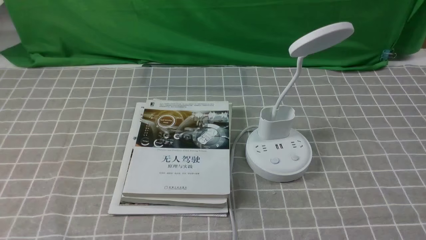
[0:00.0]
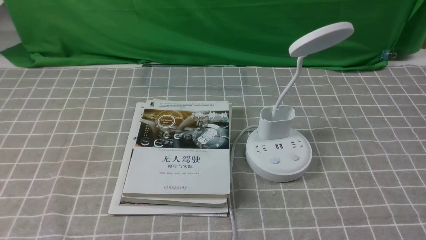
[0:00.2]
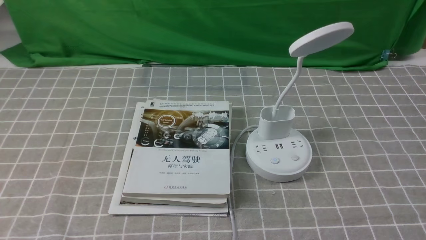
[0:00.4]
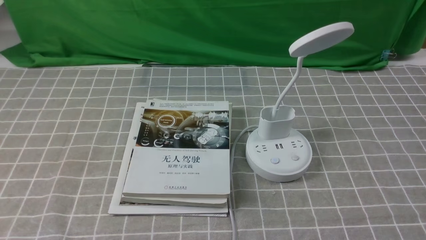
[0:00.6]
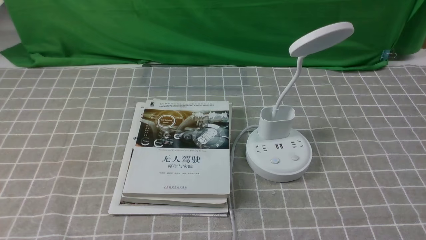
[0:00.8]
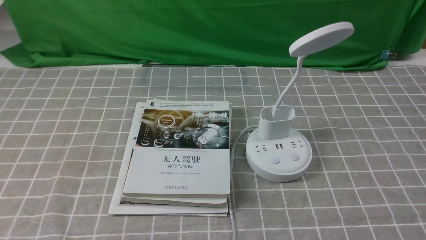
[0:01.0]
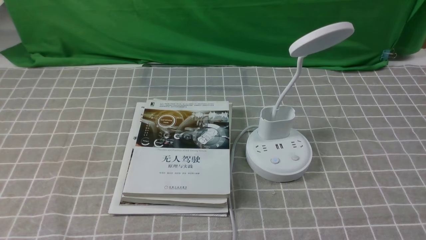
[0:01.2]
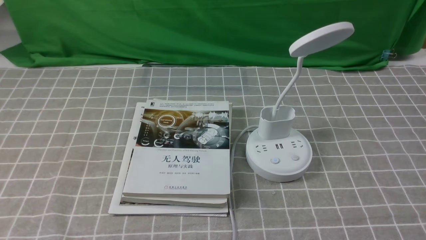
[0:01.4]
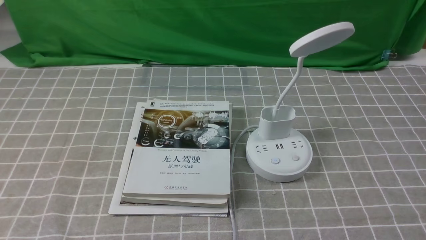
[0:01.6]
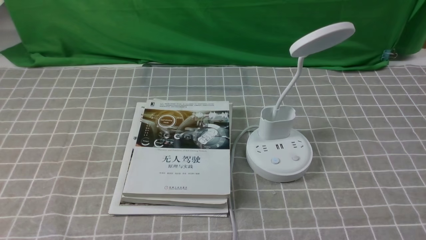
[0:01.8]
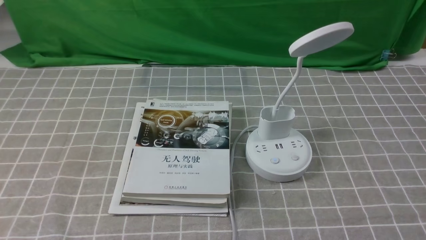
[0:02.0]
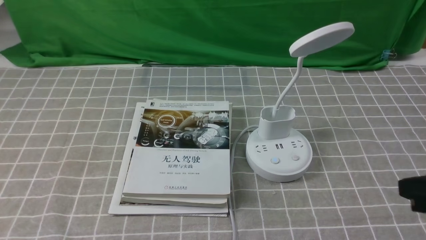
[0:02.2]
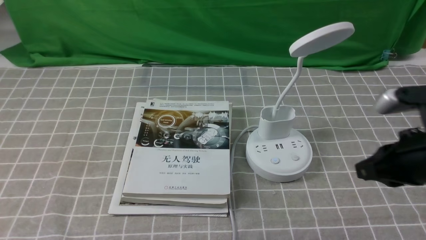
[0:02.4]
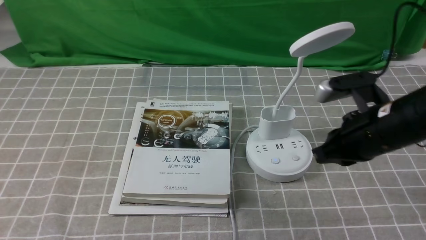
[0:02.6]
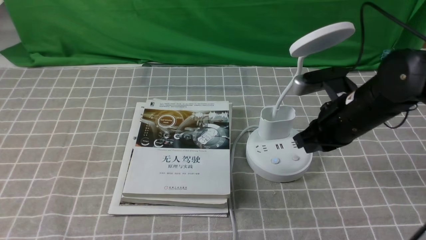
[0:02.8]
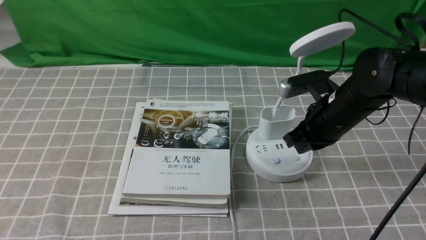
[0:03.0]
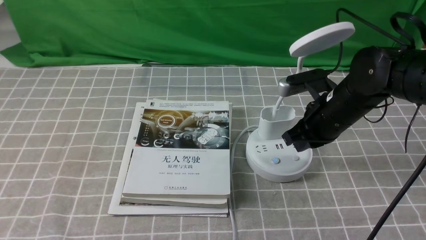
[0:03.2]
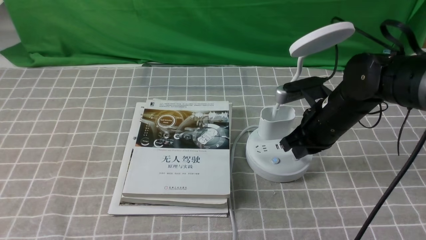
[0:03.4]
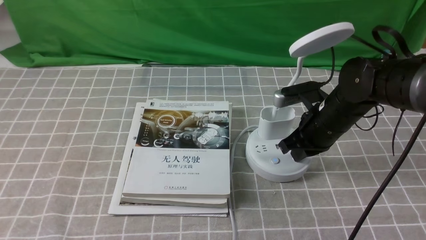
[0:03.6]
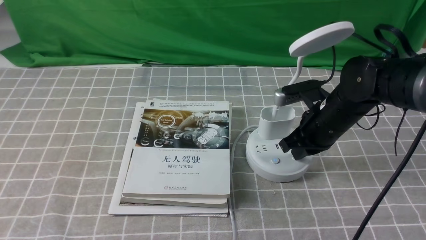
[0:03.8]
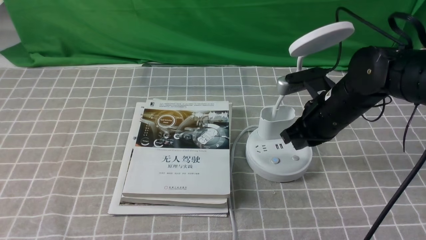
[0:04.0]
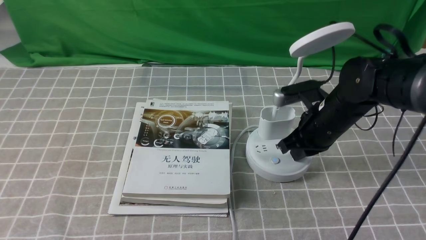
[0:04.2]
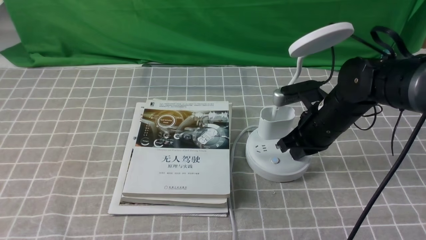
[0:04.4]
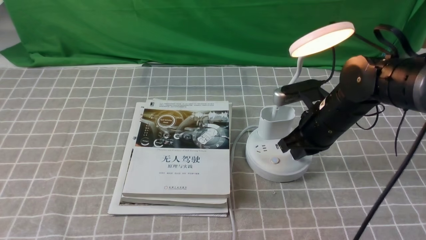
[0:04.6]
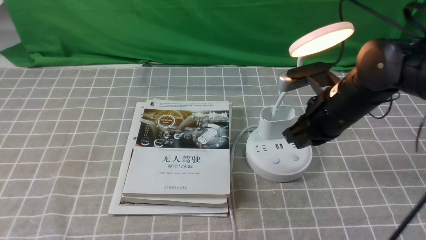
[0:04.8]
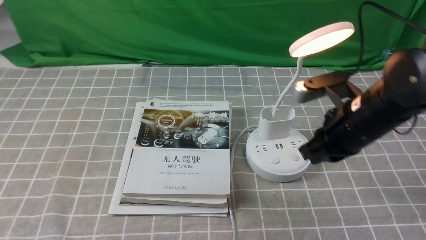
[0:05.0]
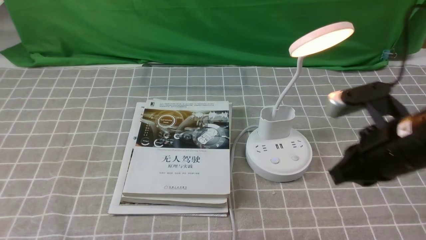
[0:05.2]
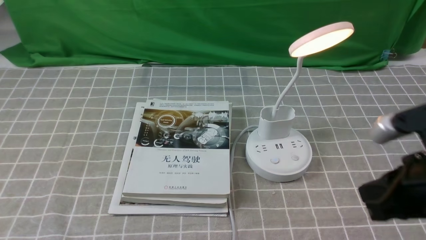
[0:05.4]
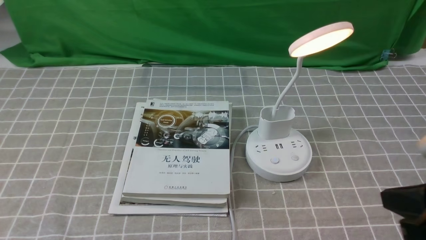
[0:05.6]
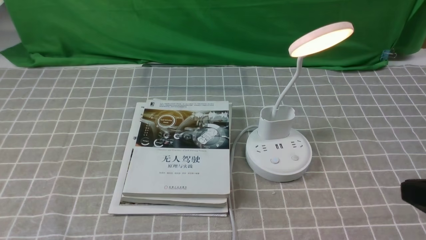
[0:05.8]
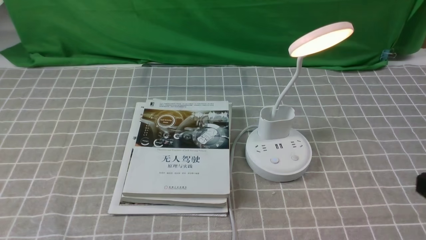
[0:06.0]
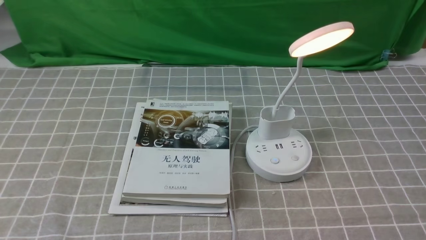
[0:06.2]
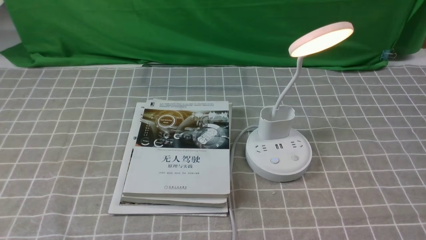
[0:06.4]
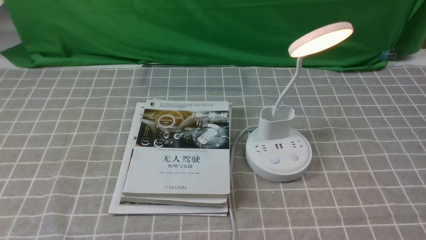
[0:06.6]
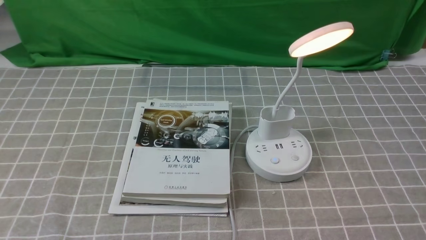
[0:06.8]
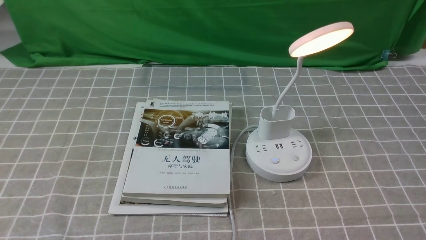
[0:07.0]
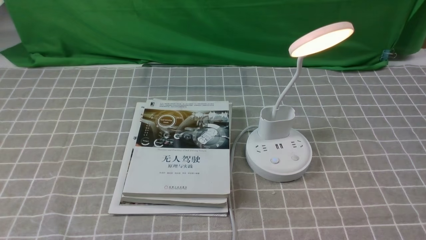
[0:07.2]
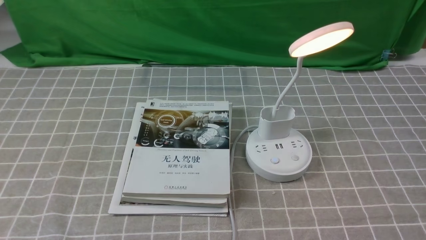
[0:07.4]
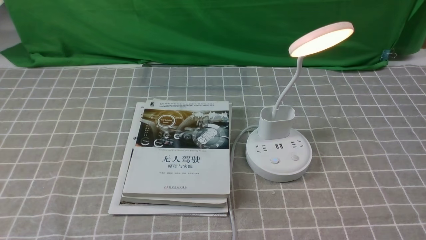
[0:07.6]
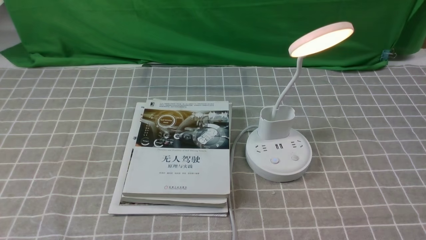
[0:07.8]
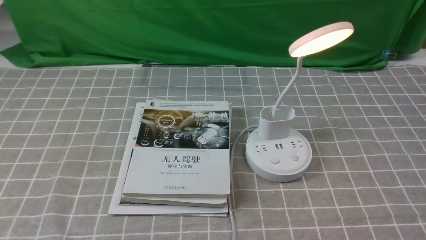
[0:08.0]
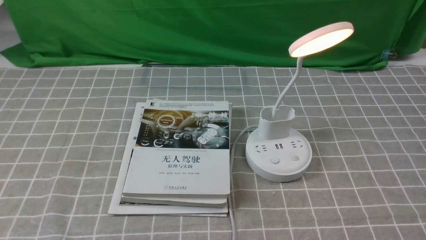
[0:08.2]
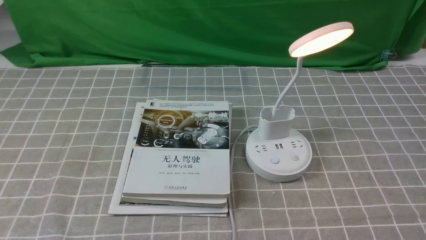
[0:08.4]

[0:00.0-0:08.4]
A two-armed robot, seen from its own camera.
Step, 0:00.0 to 0:04.2: use the right arm to press the button switch on the lamp holder.
0:01.4 to 0:02.8: The right gripper heads forward and to the left, covering approximately 30 cm, and closes.
0:02.8 to 0:04.2: The right gripper changes place by about 5 cm.
0:04.2 to 0:05.6: The right gripper is displaced backward and upward by roughly 25 cm.
0:05.6 to 0:07.0: The right gripper travels downward, backward and to the right by some 15 cm.
